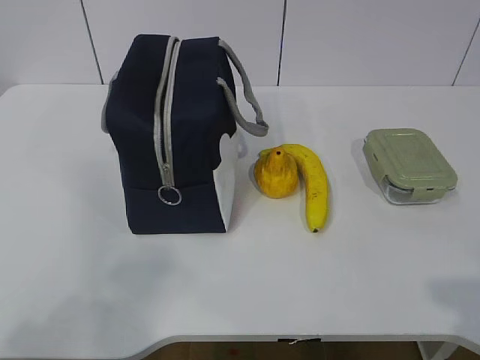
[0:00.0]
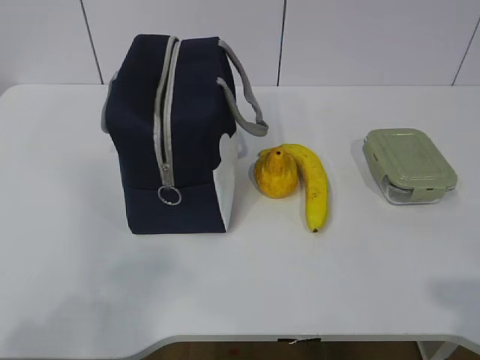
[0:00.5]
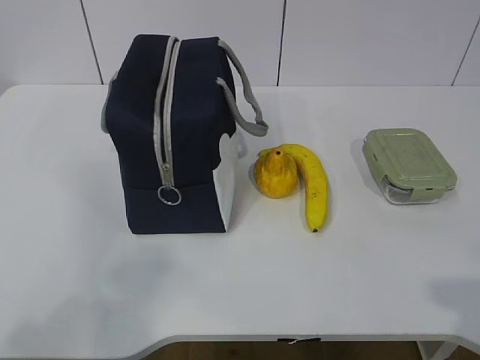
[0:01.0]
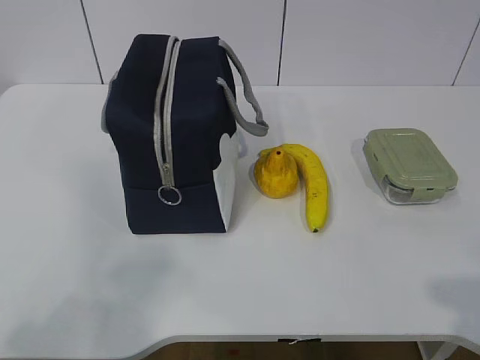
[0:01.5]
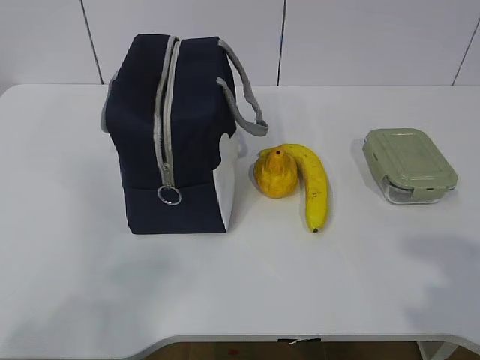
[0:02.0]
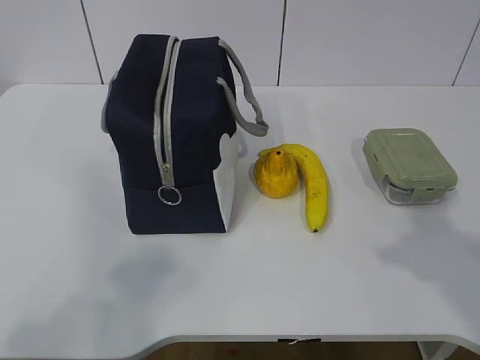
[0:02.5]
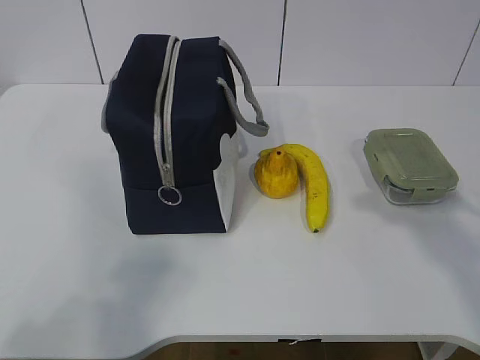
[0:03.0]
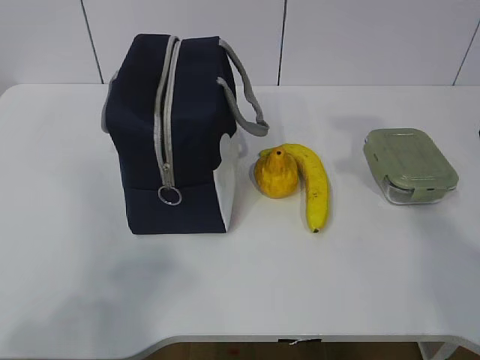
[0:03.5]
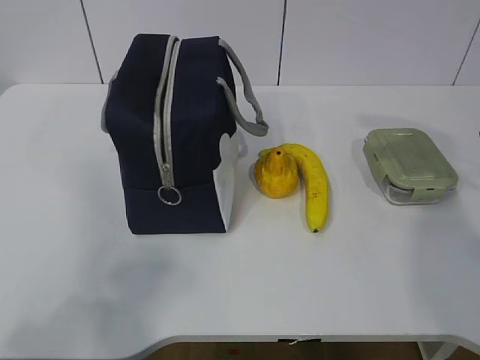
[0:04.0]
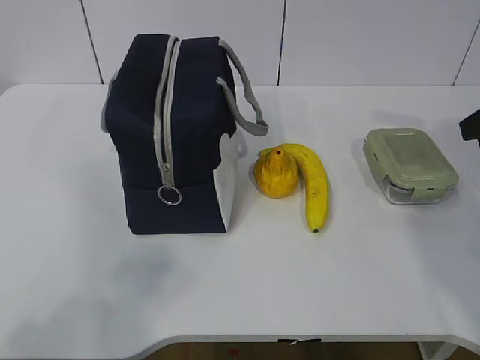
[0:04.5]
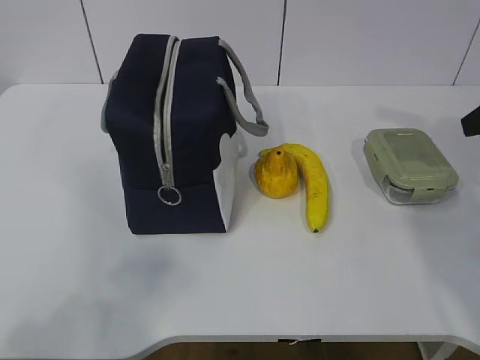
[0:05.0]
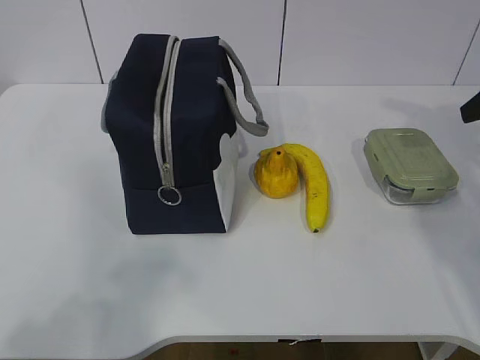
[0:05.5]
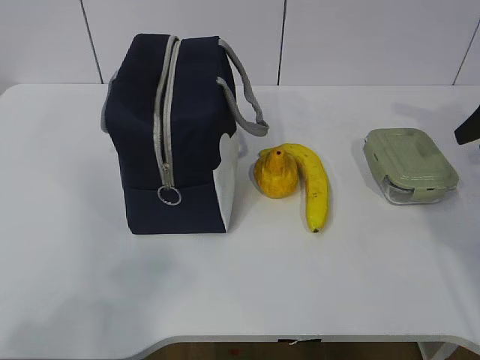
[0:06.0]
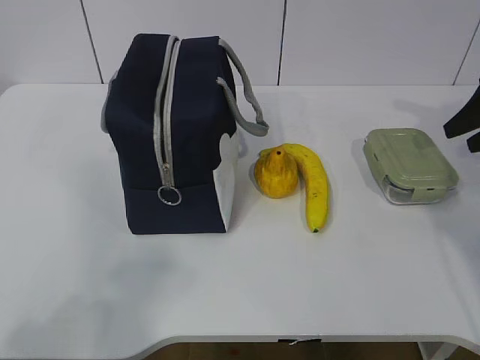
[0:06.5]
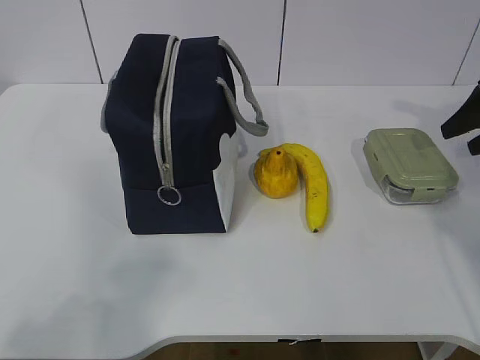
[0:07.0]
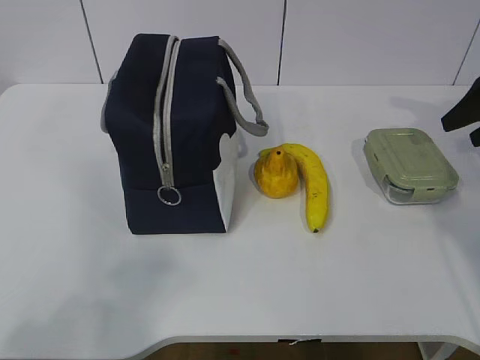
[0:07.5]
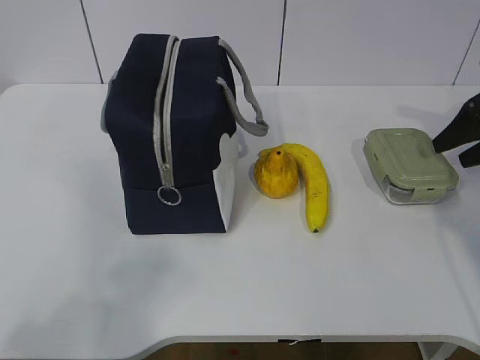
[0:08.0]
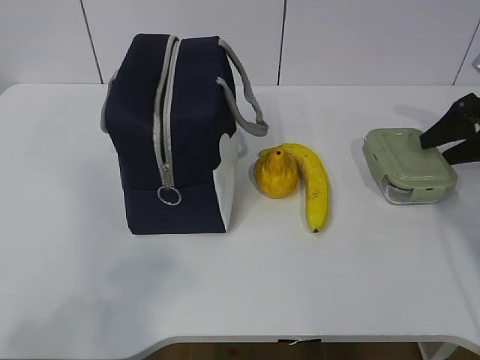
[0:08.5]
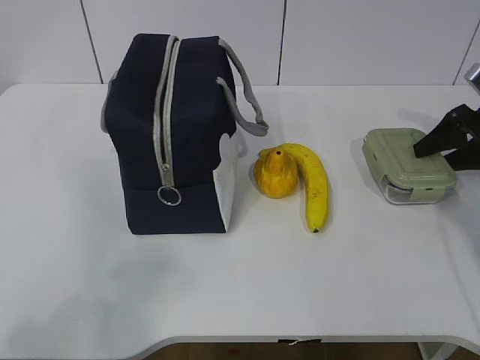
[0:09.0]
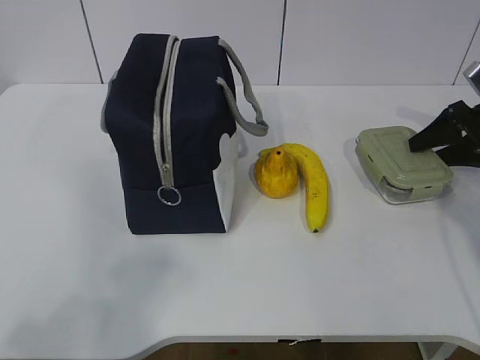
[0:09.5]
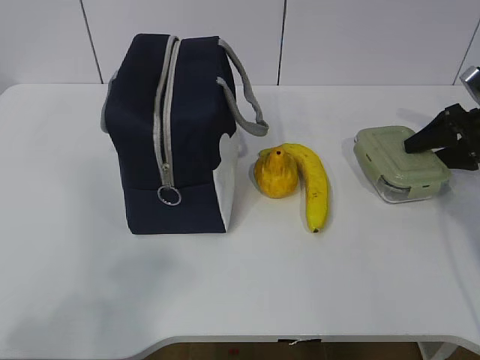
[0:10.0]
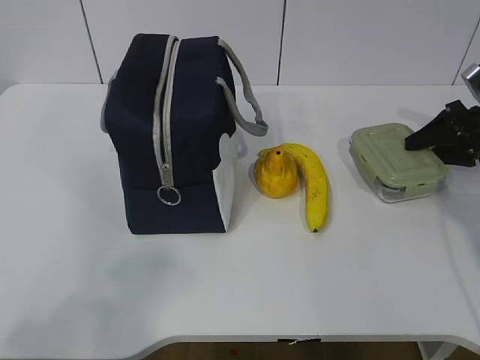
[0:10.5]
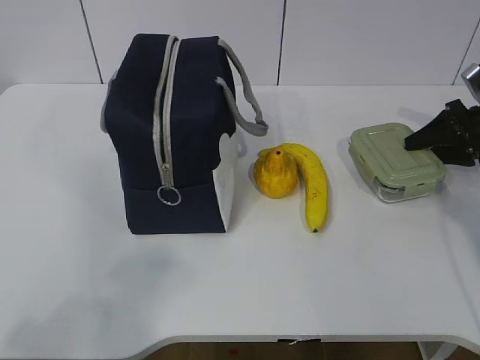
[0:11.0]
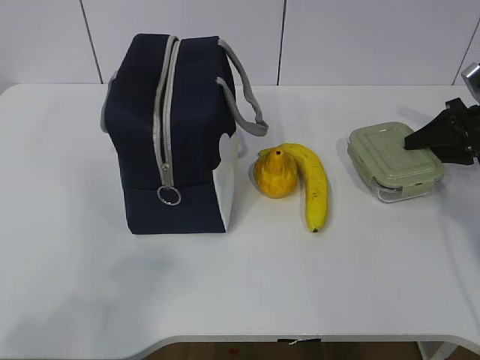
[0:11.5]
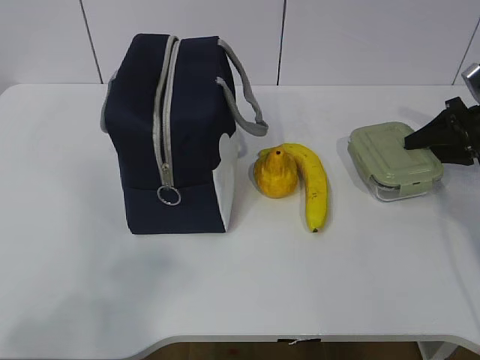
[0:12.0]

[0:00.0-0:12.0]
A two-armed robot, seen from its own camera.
Step, 0.0 to 9.0 s: Grab the lunch box with your right hand.
6.0 to 8.0 s: The right gripper ends up about 5 cm from where it was.
8.0 to 10.0 s: The right gripper ends up roughly 5 cm from where it was.
10.0 to 12.0 s: Both grippers stay about where they are.

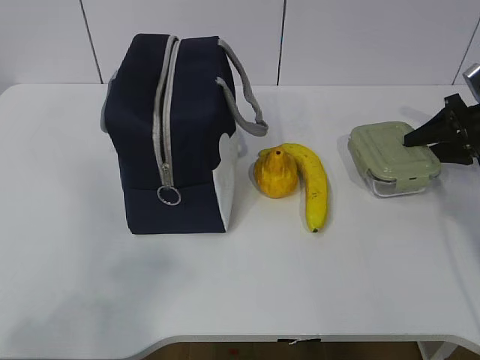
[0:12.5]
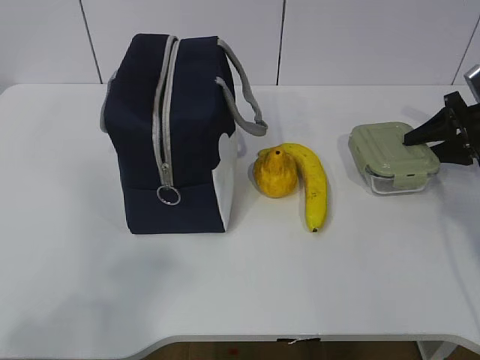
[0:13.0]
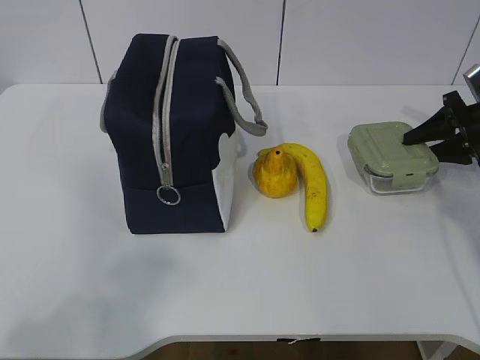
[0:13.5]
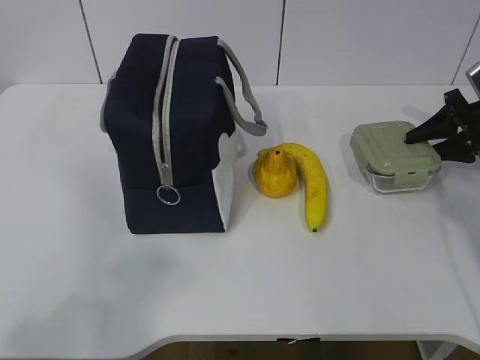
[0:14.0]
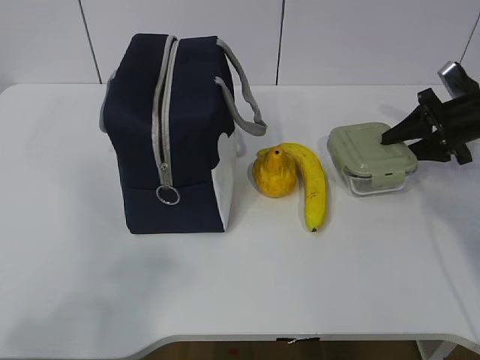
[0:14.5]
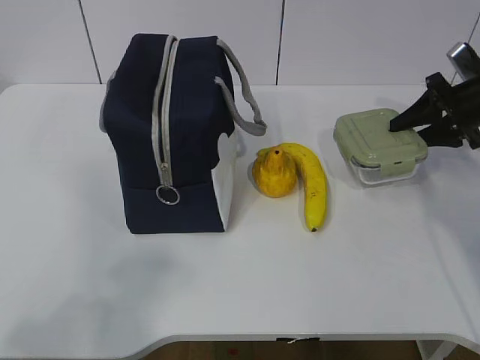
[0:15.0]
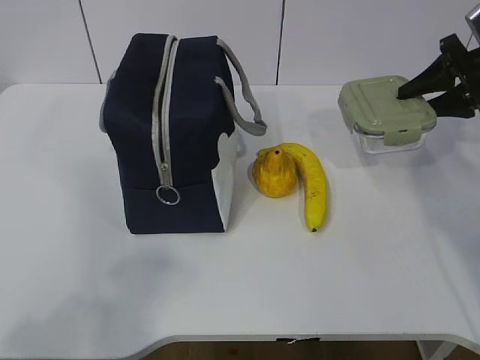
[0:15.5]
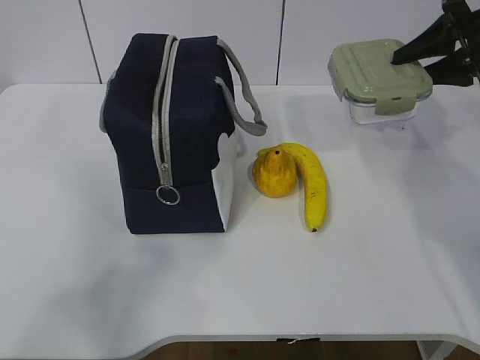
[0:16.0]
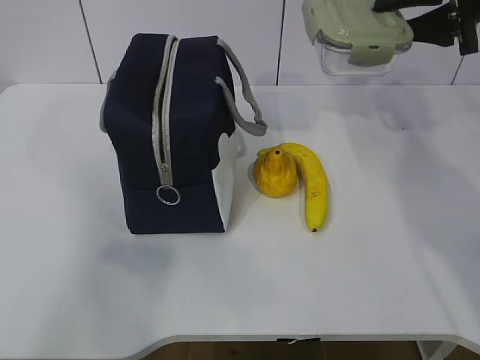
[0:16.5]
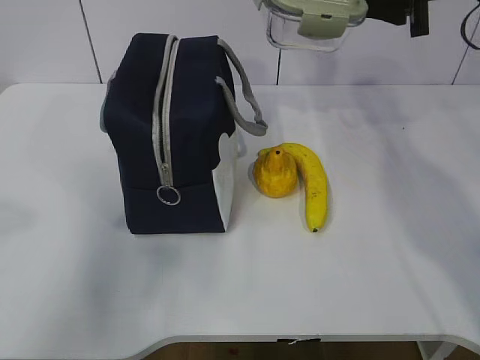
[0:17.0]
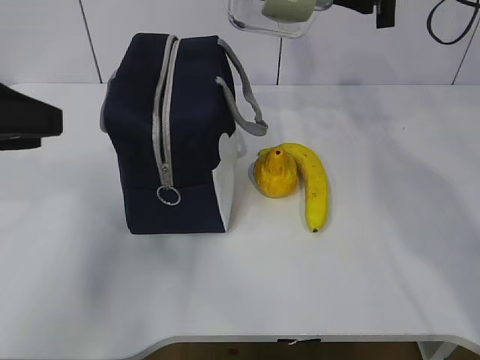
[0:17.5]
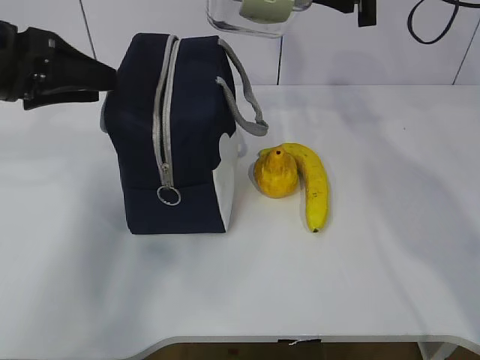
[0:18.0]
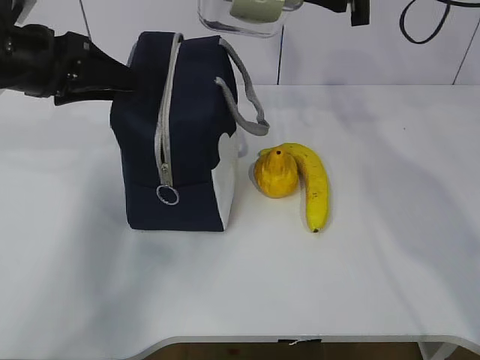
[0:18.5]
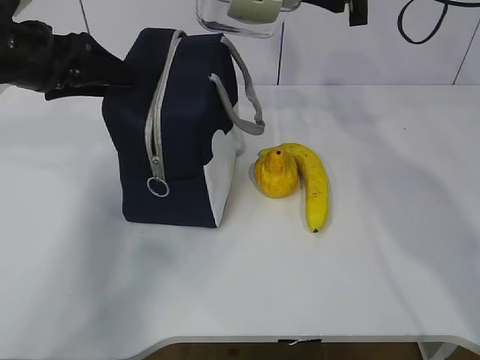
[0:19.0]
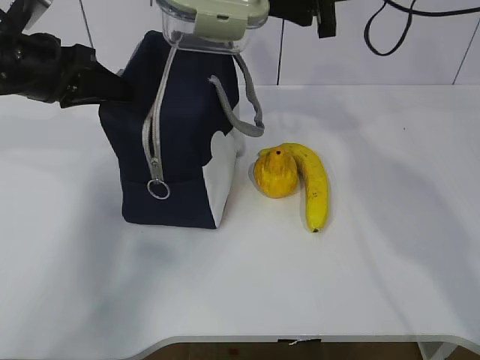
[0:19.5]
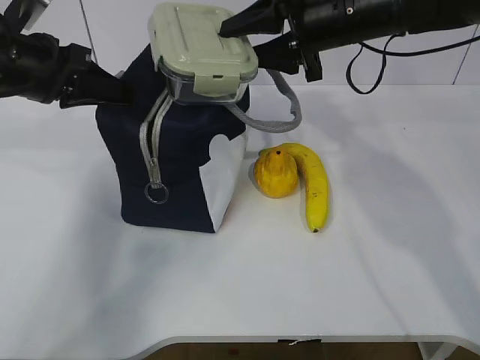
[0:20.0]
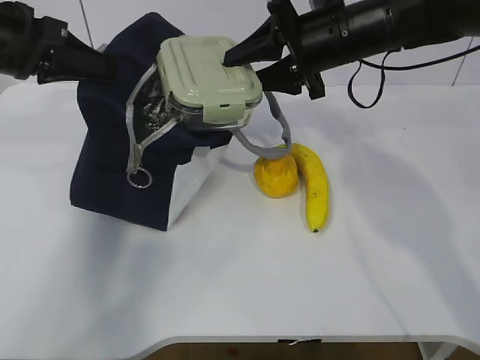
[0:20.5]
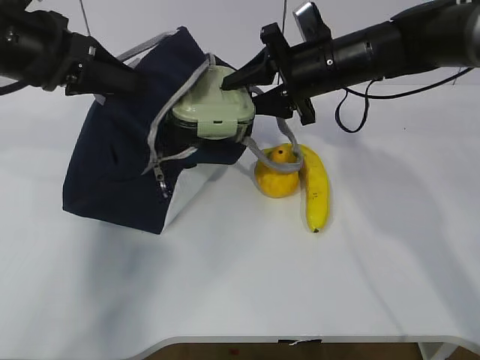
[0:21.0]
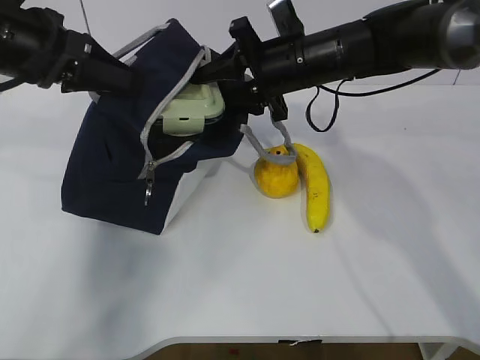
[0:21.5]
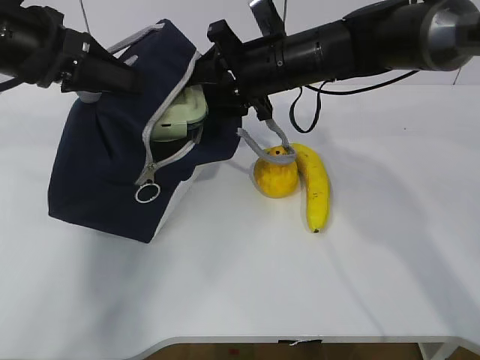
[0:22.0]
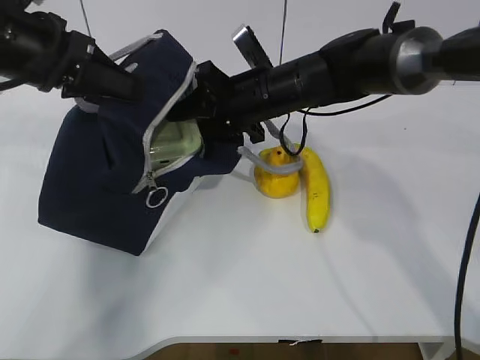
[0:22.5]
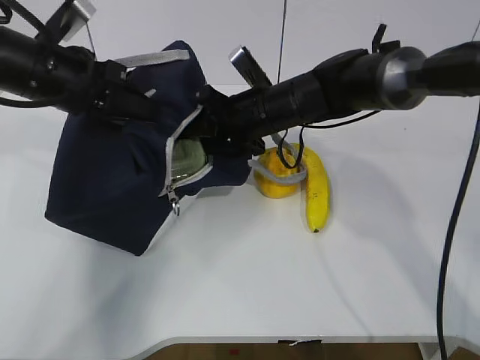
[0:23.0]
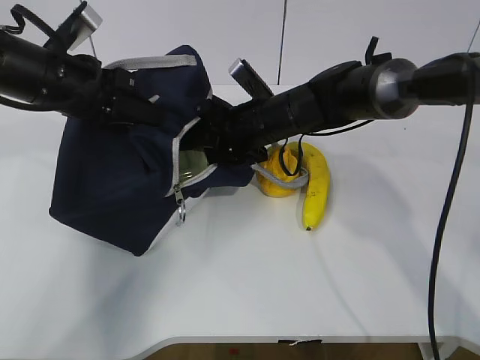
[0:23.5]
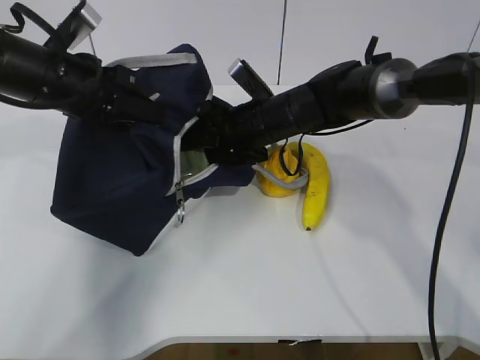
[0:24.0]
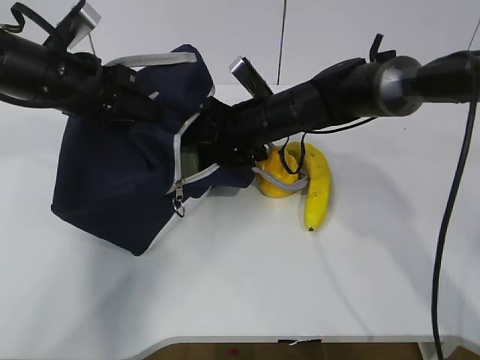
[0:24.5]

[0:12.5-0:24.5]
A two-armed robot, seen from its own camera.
Step, 12.5 to 16.5 s: Grab the lunch bag with your left hand.
Step, 17.0 to 20.0 s: Place it into the bag with your right hand.
Step, 20.5 to 24.5 s: Grab the banana with your right hand.
12.5 to 14.5 s: The grippers move only a little.
14.5 to 16.5 s: The right gripper goes approximately 20 cm upward. The left gripper goes approximately 10 cm upward and forward.
16.5 to 18.5 s: The right gripper shifts some 10 cm to the left. Meanwhile the left gripper heads forward, covering approximately 30 cm.
18.5 to 20.5 s: The right gripper shifts some 10 cm downward. The left gripper closes.
20.5 to 22.5 s: The right gripper shifts approximately 10 cm to the left and downward.
22.5 to 24.5 s: The left gripper shifts by roughly 5 cm.

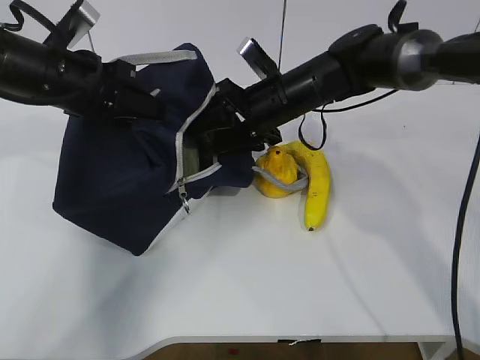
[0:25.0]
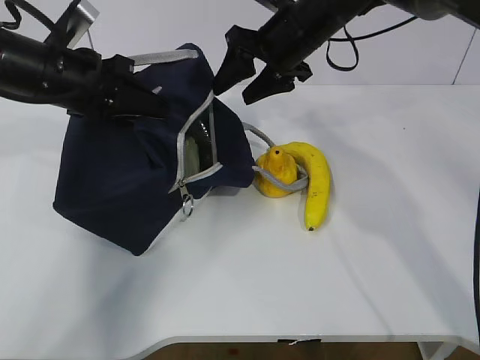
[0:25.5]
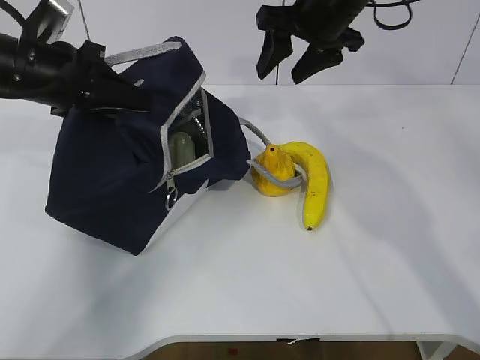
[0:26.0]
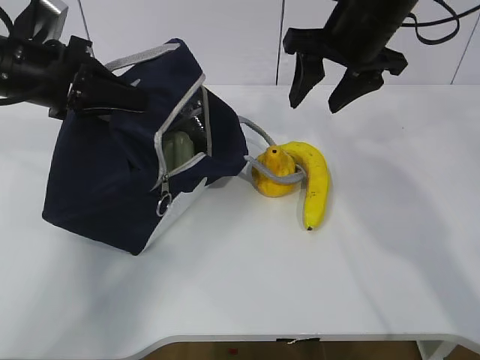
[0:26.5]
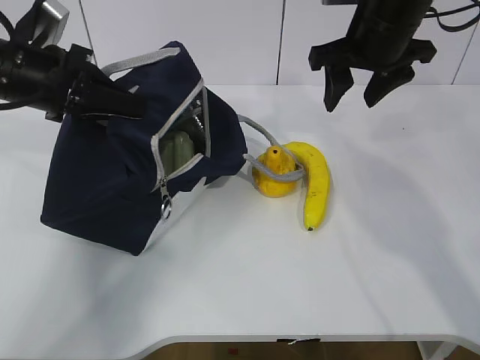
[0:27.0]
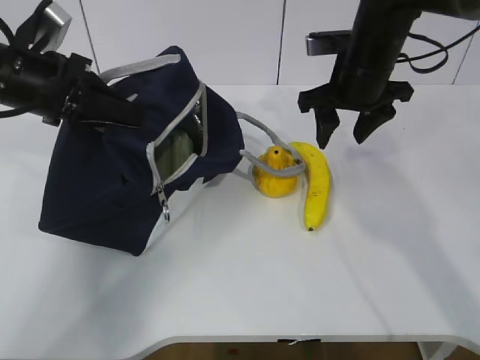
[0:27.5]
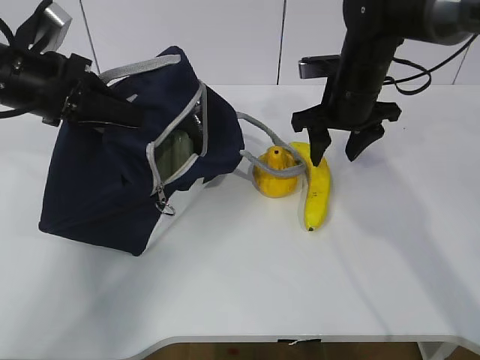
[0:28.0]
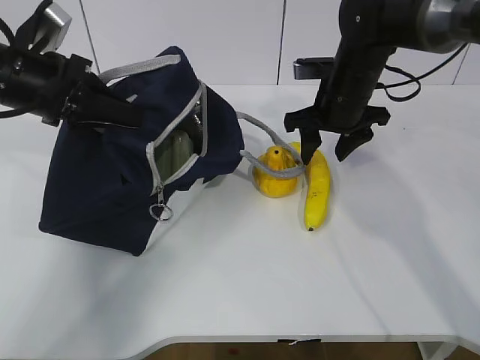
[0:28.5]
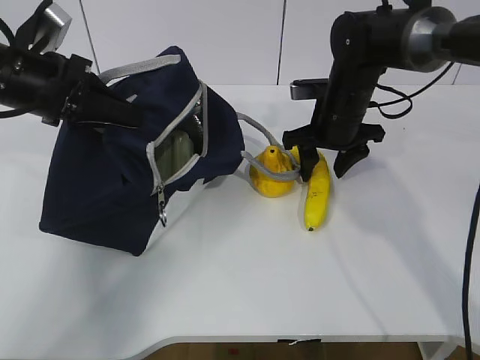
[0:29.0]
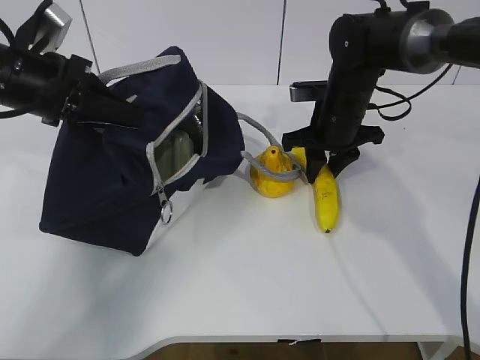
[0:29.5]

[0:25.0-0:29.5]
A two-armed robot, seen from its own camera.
Step, 25.0 to 28.5 s: Place it into the bag with your right hand.
25.0 to 27.0 s: The right gripper moves upward and to the right, approximately 15 cm.
27.0 to 29.5 s: The right gripper is displaced downward by some 15 cm, and closes up.
